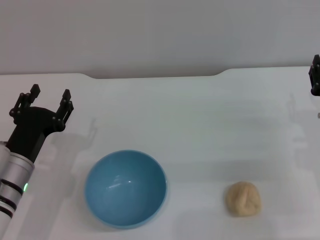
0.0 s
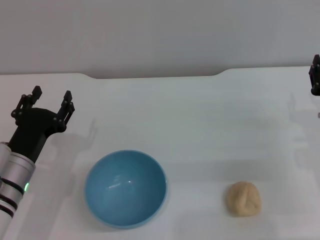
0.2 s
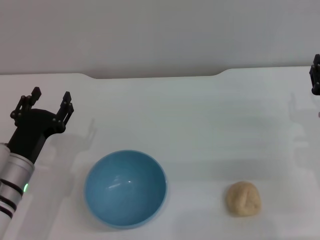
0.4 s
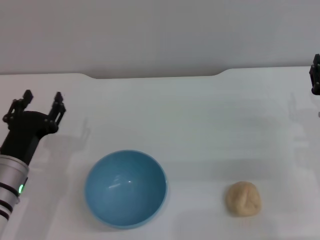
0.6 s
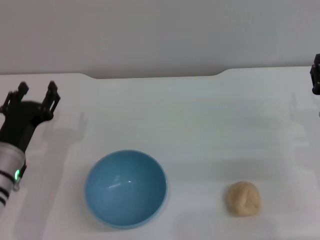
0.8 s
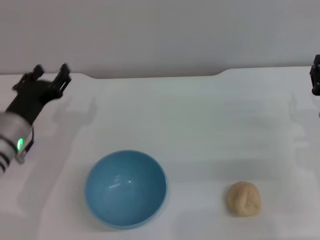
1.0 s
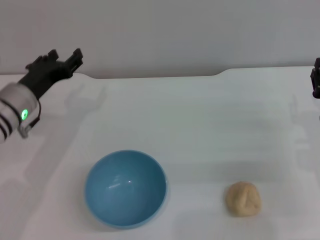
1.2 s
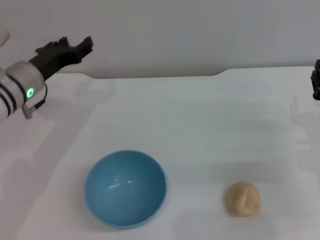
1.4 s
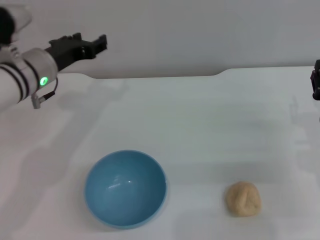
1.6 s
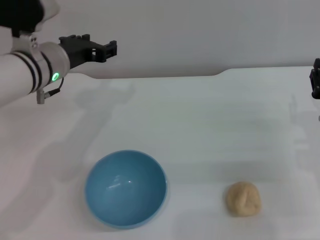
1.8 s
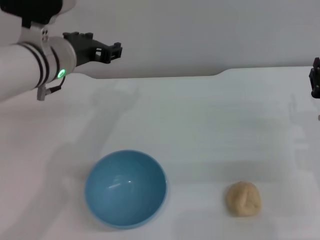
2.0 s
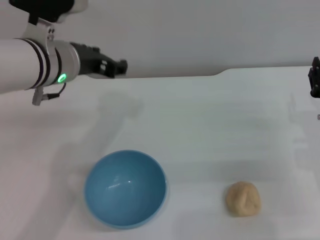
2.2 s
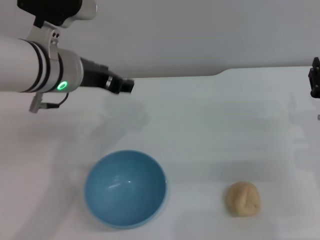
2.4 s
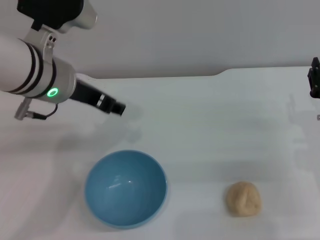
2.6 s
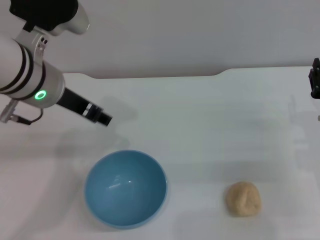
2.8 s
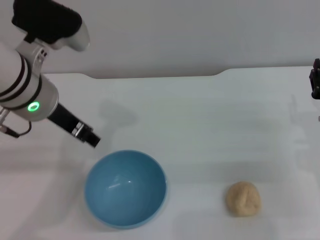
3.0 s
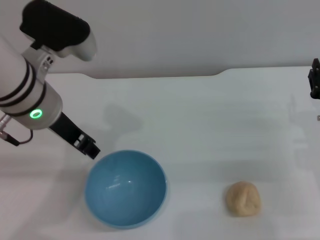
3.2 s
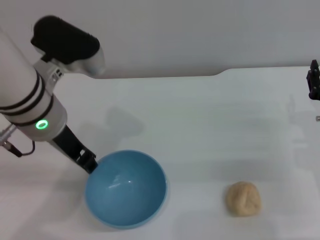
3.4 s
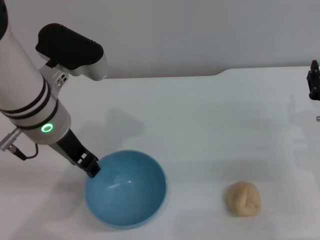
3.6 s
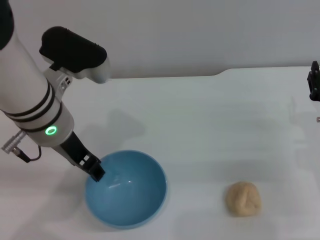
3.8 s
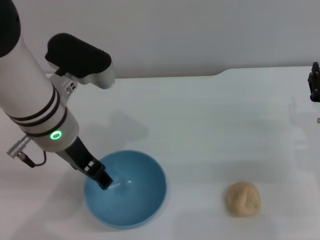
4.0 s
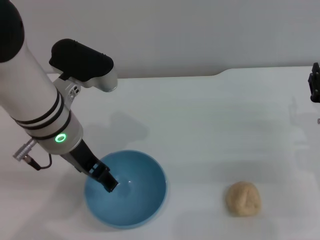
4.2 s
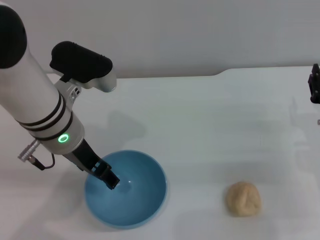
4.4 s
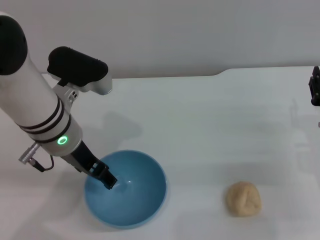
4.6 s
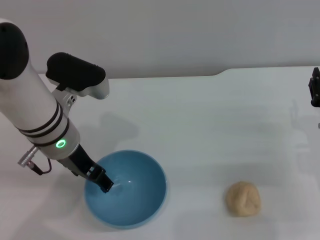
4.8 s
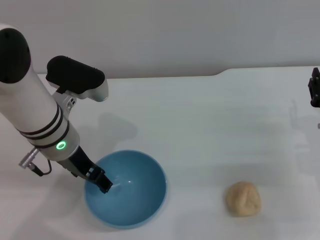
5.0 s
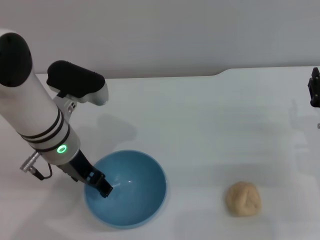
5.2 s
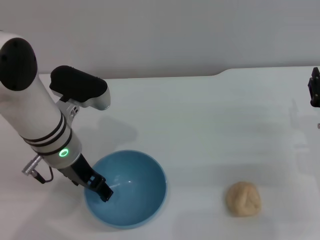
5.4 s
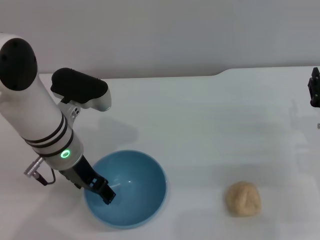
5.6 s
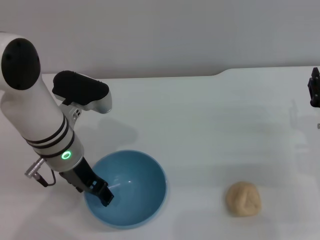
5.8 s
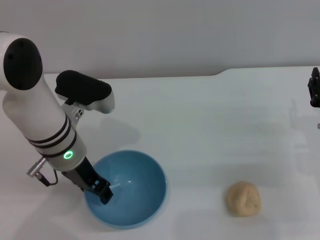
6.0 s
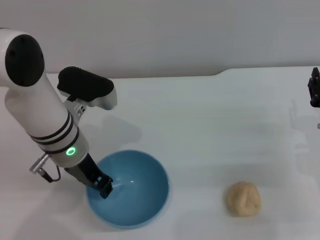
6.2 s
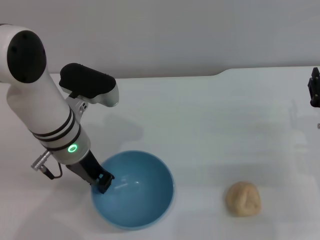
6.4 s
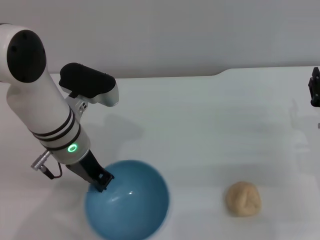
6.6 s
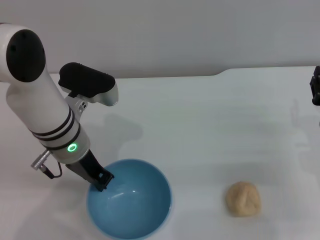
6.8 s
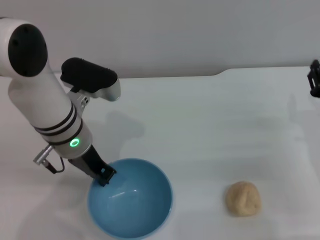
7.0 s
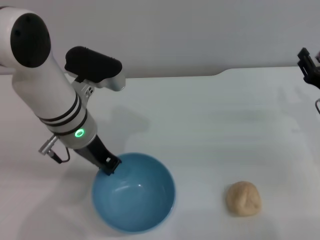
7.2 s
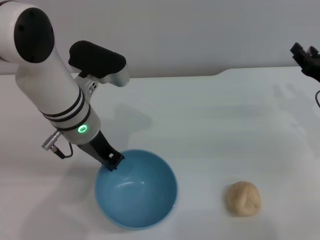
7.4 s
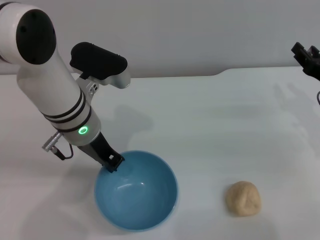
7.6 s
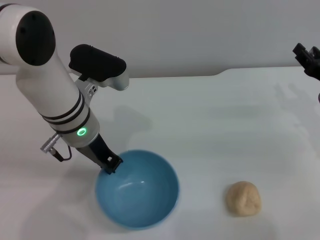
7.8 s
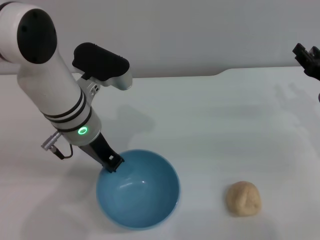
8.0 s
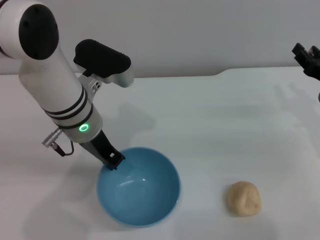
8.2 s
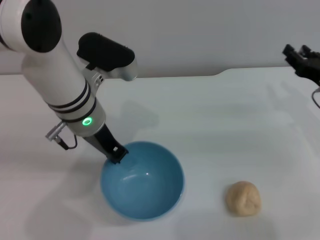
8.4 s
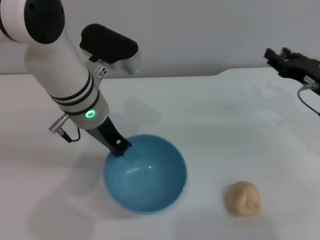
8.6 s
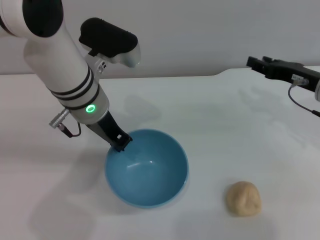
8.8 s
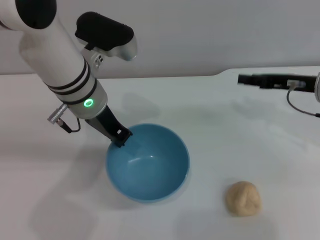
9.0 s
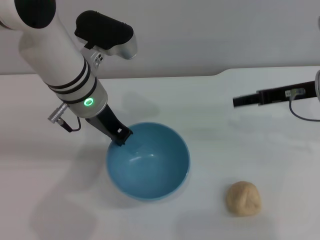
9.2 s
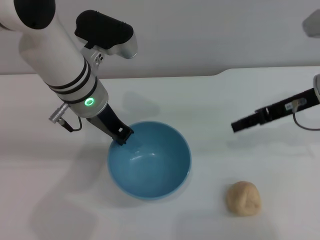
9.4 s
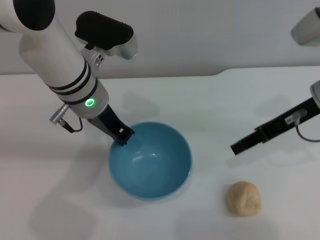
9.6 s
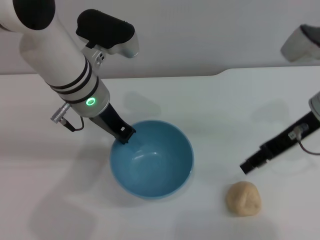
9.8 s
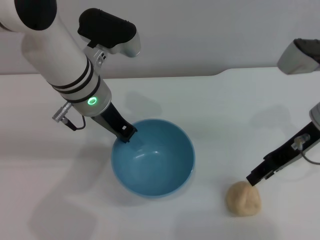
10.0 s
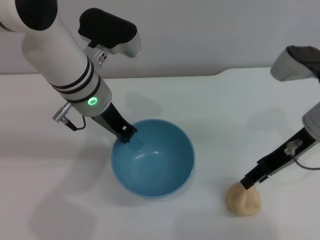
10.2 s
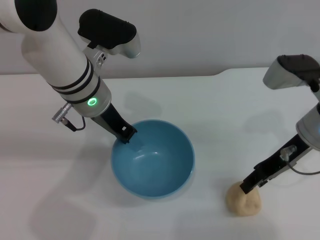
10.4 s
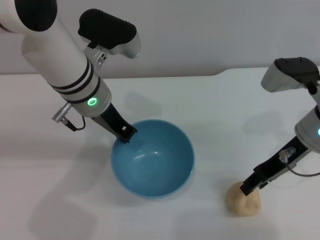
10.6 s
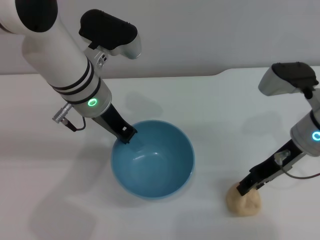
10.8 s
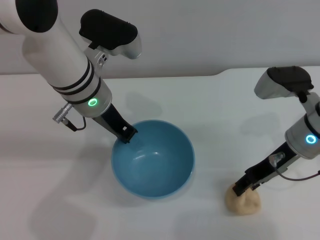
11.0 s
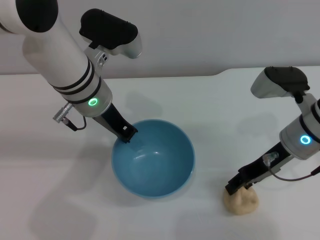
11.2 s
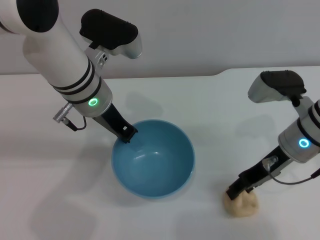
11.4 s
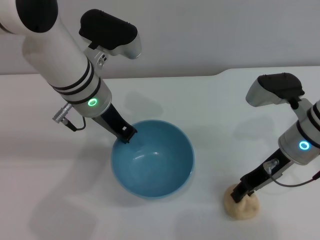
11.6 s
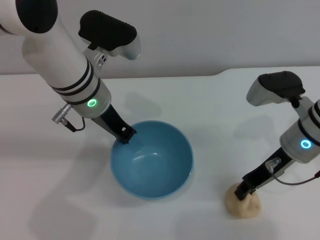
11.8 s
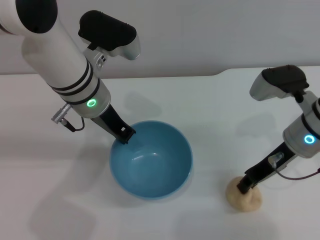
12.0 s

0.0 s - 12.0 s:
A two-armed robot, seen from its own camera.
Task of the whole recording: put the egg yolk pastry into the blue bowl and pour it out repeatedly.
Step, 0.0 s - 9.6 s: Pick up the bowl with the left gripper.
0.0 s - 1.6 s: The left gripper goes approximately 15 cm forward and upward.
1.6 s - 3.0 s: The left gripper is displaced upward and backward by roughly 10 cm.
3.0 s - 4.4 s: The left gripper changes place by roughly 5 cm.
4.4 s - 6.0 s: There are only small adjustments of the grippers.
6.0 s - 7.6 s: The right gripper goes about 5 cm forward. Meanwhile the left gripper closes its fingers.
7.6 s - 9.0 s: The right gripper is displaced upward by about 5 cm.
9.0 s - 10.4 s: The right gripper moves to the left, some 5 cm.
10.4 s - 12.0 s: The grippers make only small movements.

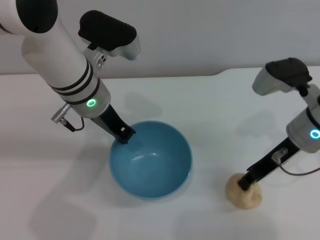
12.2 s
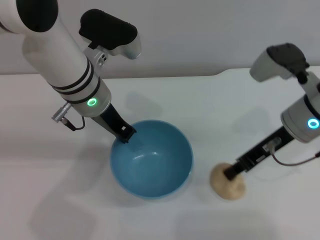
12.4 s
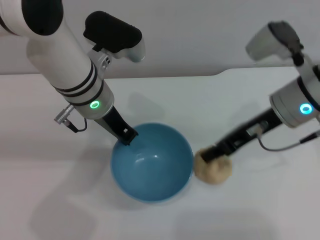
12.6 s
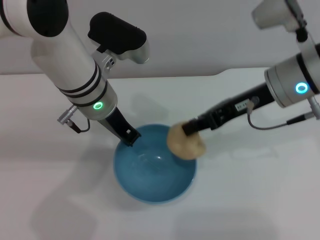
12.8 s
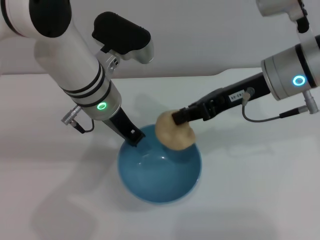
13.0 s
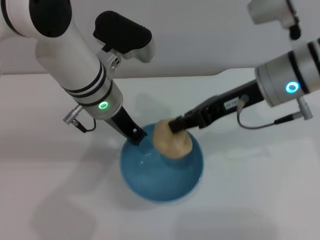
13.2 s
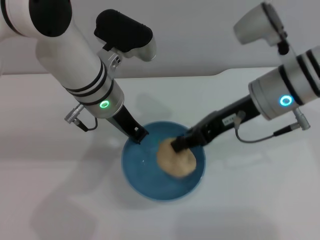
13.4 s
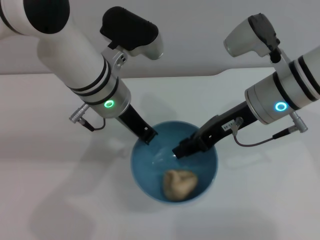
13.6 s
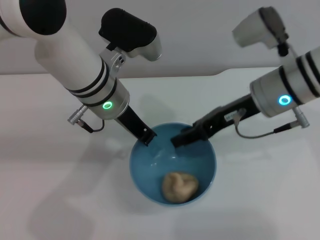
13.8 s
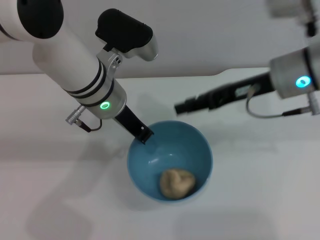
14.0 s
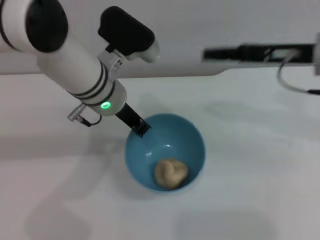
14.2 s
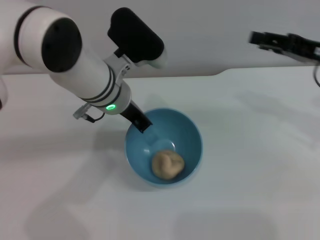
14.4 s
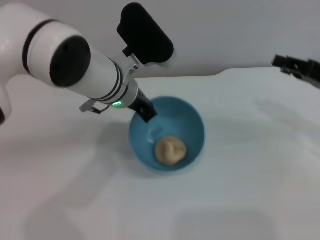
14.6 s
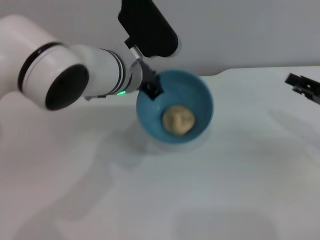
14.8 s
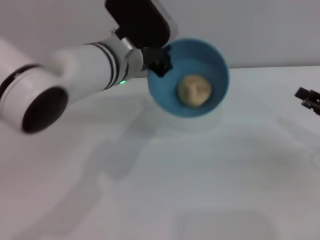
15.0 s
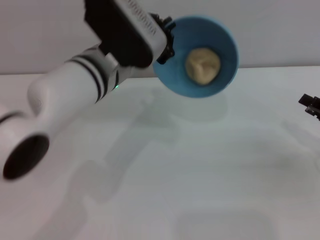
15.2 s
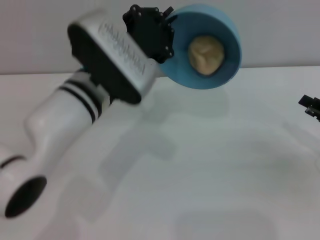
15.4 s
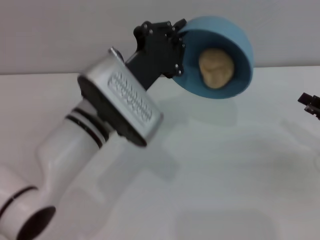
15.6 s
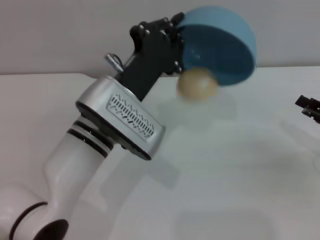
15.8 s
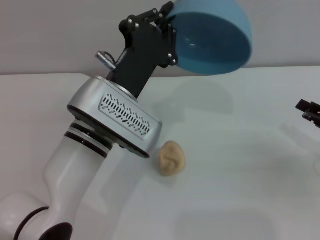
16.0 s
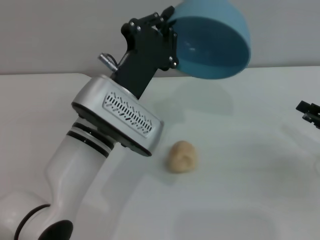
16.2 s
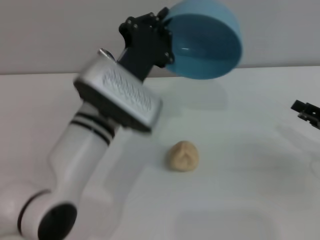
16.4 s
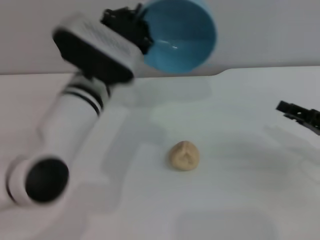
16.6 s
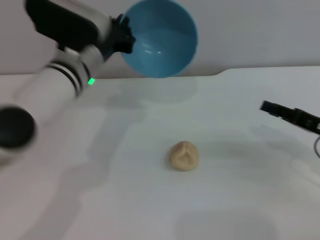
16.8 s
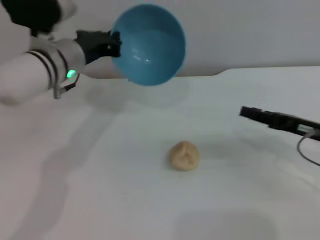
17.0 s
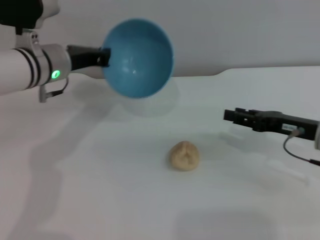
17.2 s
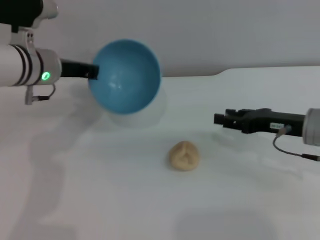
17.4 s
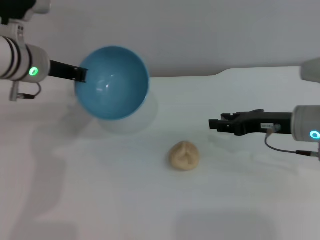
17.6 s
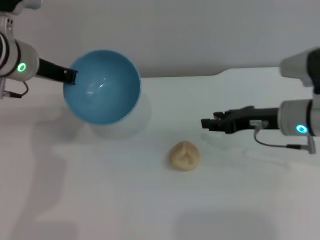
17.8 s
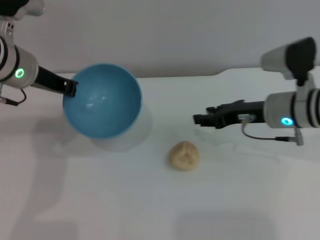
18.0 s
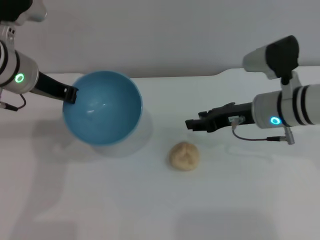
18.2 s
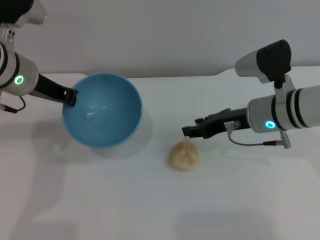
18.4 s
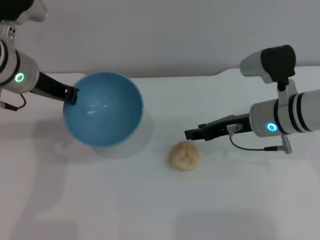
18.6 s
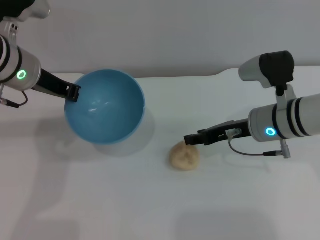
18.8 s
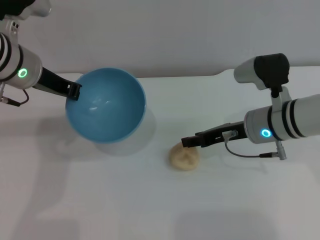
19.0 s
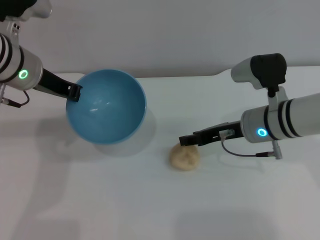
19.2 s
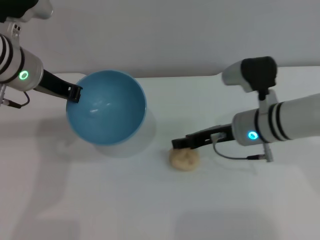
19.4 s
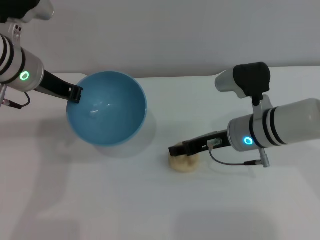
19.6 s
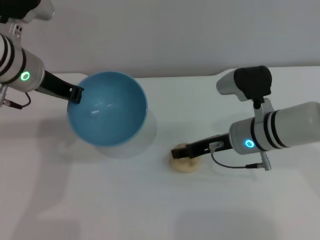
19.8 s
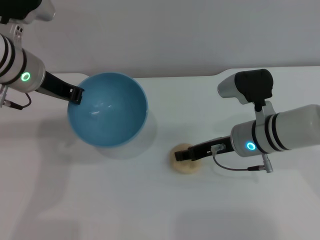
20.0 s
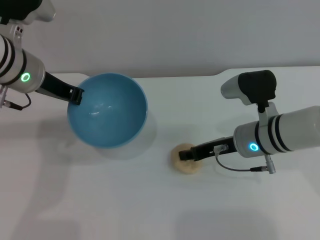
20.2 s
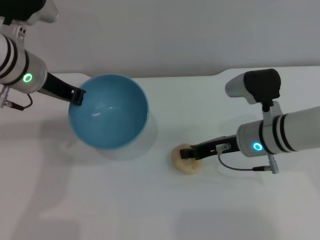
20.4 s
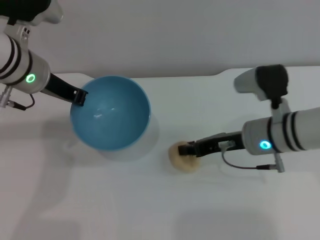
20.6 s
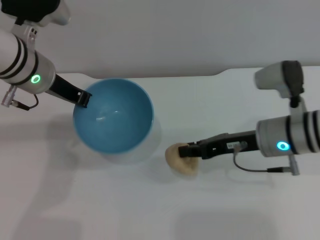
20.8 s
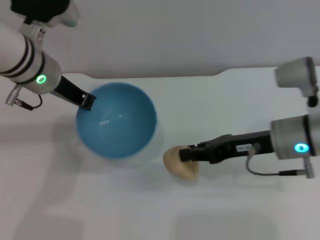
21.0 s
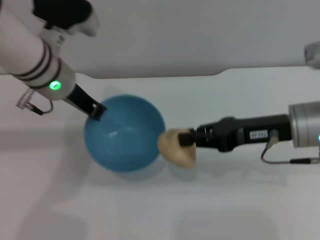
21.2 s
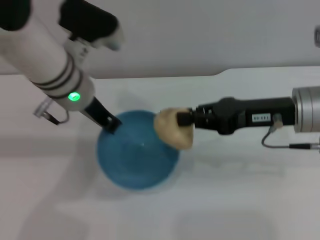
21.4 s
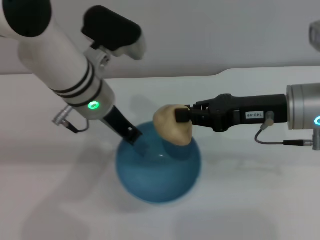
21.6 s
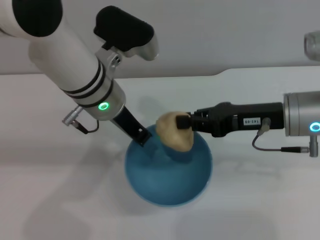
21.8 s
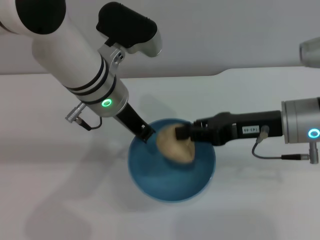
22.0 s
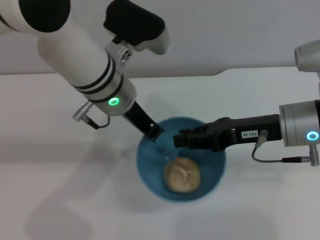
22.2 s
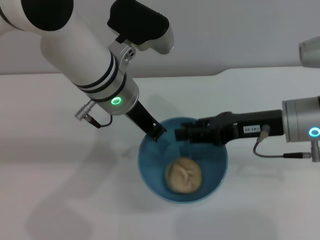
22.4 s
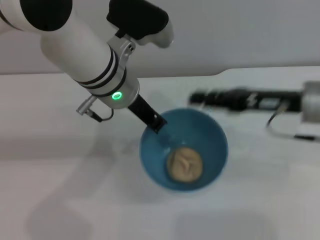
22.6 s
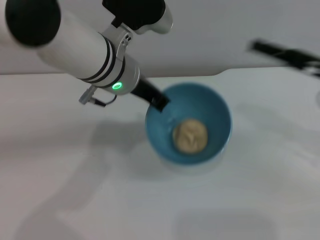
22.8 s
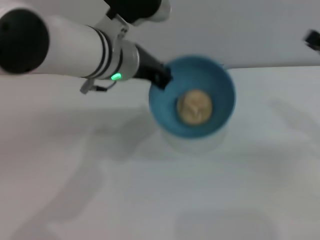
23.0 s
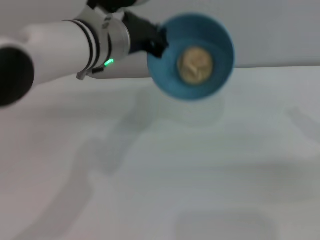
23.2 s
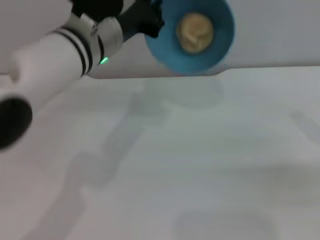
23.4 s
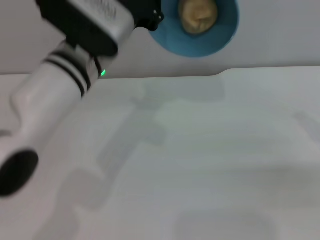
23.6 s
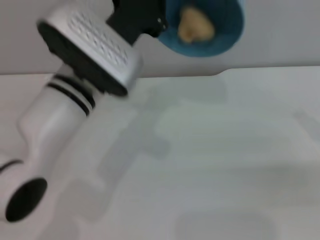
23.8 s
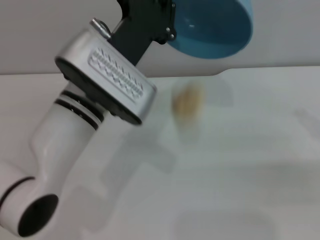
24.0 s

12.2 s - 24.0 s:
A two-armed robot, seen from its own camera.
Task of the whole recording: put the egg yolk pastry into the blue bowl and pour it out repeatedly.
Step, 12.6 s - 13.6 s: Place the egg yolk pastry into the bowl.
Step, 14.0 s - 16.0 s: Pour the egg yolk pastry out of bowl.
Step, 16.2 s - 21.0 s: Pick up the egg yolk pastry with the right gripper.
Step, 21.2 s - 22.4 s: Place the egg yolk pastry into the bowl.
12.2 s - 13.6 s: The right gripper moves to the left, about 5 cm.
13.6 s - 15.2 s: The right gripper moves to the right, downward and backward, roughly 25 cm, and opens.
16.6 s - 18.2 s: The right gripper is displaced to the left and forward by some 20 cm. The left gripper moves to the left, approximately 10 cm.
18.2 s - 19.6 s: The grippers make only small movements.
19.6 s - 21.0 s: The right gripper goes approximately 5 cm to the right, and closes its fingers.
21.0 s - 22.6 s: The left gripper shifts roughly 10 cm to the right.
22.6 s - 24.0 s: The right gripper is displaced to the right and backward by approximately 15 cm. The left gripper ends up roughly 5 cm from where it was.
